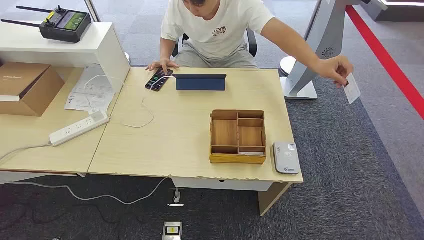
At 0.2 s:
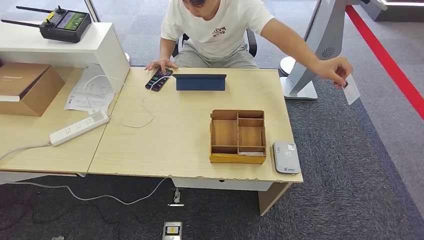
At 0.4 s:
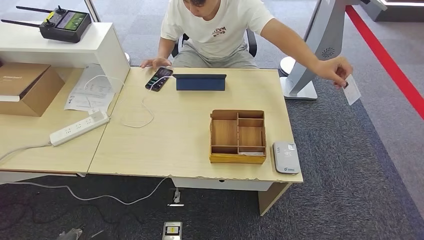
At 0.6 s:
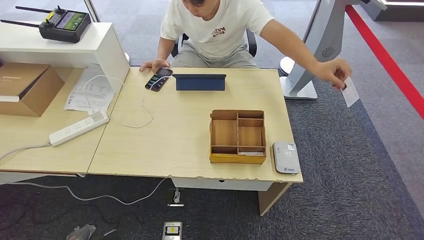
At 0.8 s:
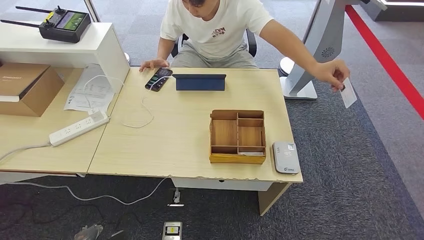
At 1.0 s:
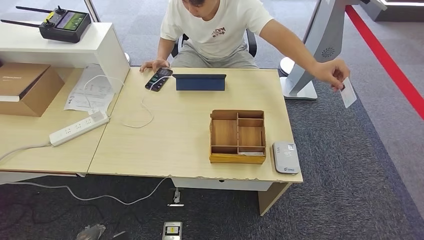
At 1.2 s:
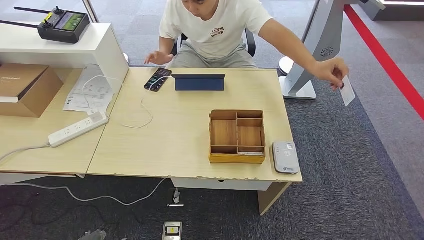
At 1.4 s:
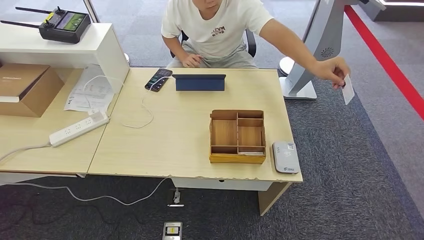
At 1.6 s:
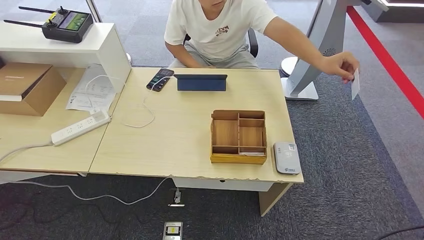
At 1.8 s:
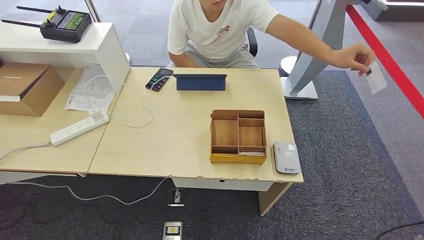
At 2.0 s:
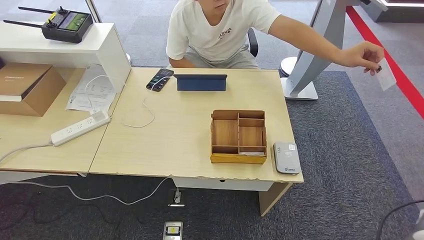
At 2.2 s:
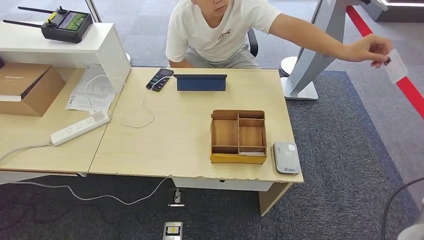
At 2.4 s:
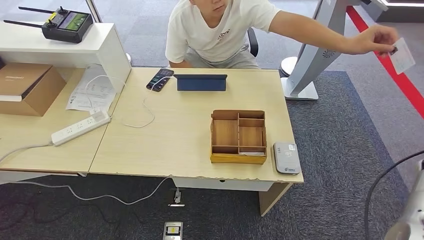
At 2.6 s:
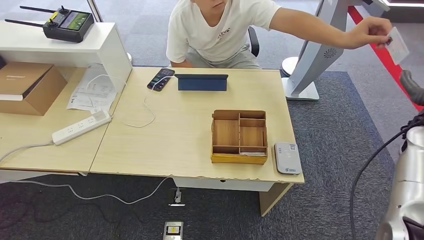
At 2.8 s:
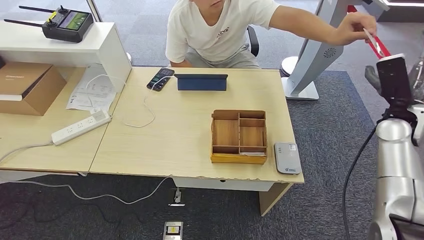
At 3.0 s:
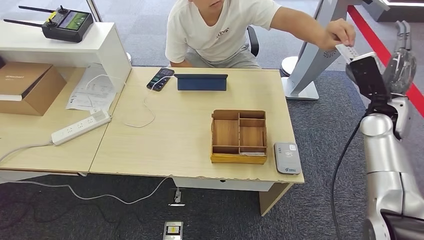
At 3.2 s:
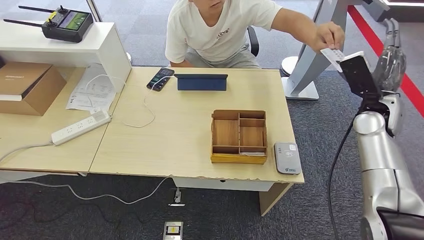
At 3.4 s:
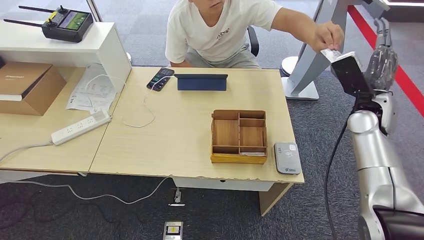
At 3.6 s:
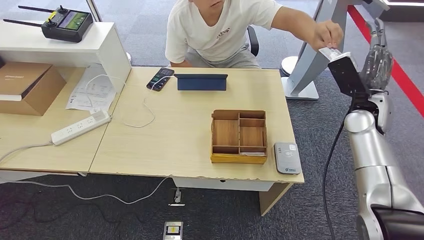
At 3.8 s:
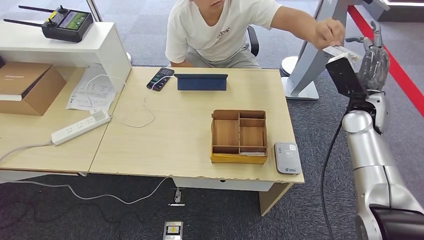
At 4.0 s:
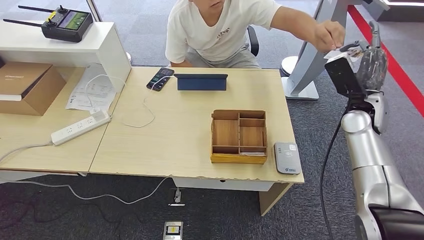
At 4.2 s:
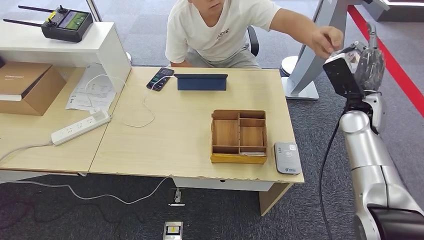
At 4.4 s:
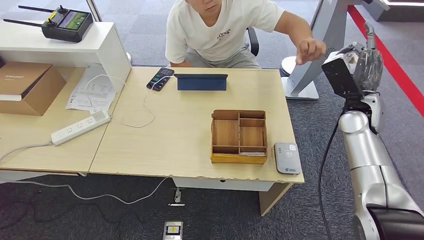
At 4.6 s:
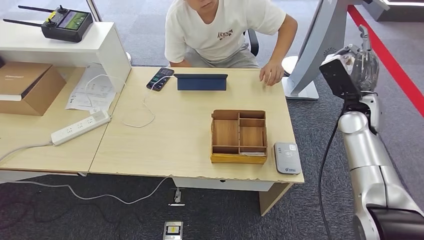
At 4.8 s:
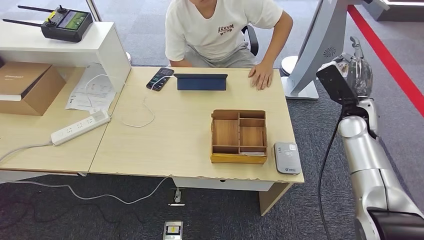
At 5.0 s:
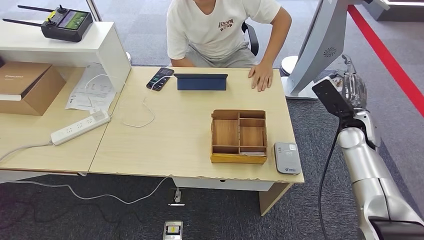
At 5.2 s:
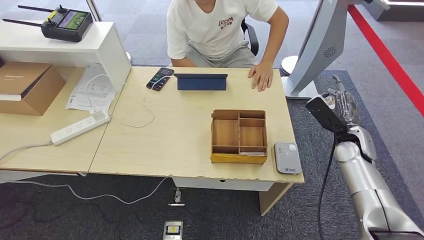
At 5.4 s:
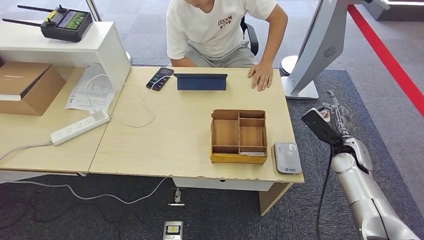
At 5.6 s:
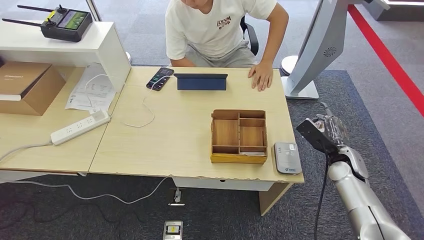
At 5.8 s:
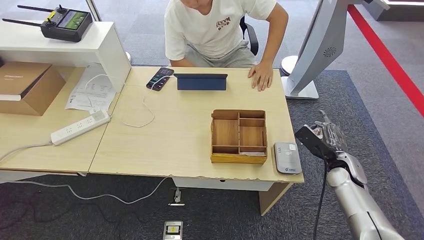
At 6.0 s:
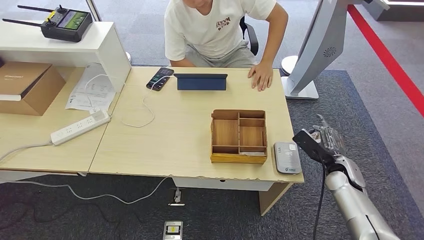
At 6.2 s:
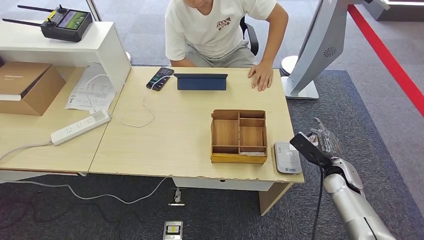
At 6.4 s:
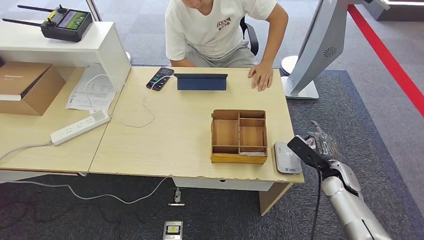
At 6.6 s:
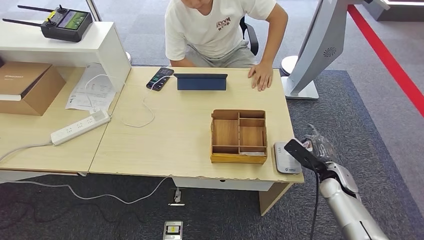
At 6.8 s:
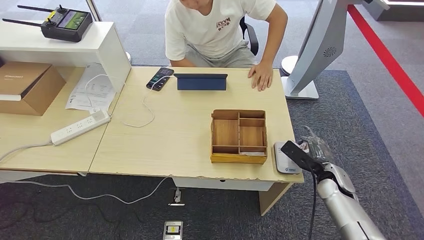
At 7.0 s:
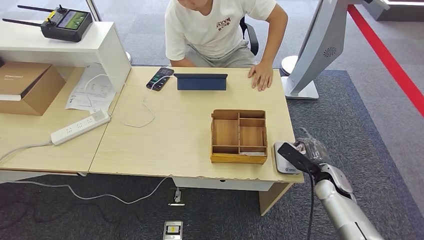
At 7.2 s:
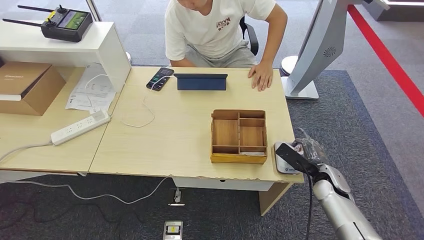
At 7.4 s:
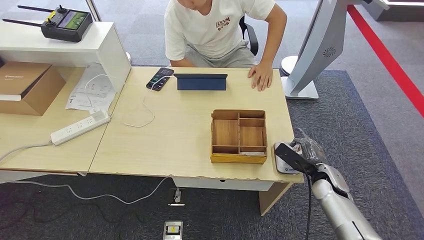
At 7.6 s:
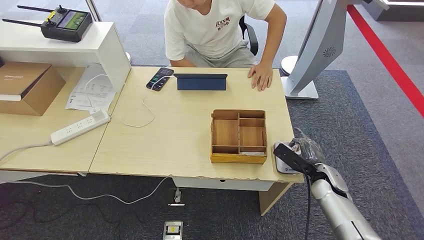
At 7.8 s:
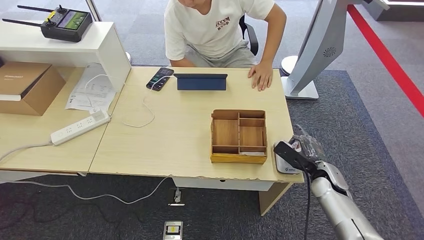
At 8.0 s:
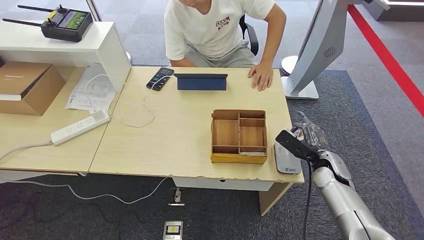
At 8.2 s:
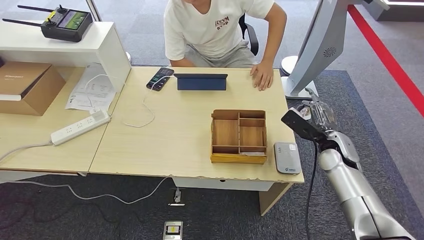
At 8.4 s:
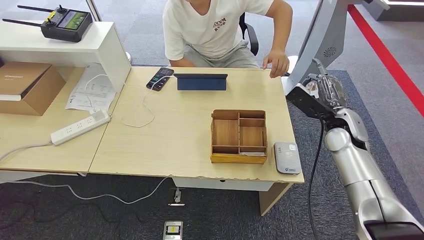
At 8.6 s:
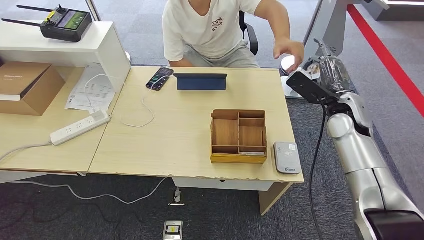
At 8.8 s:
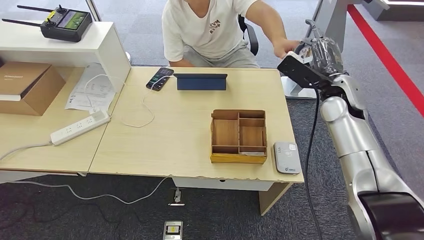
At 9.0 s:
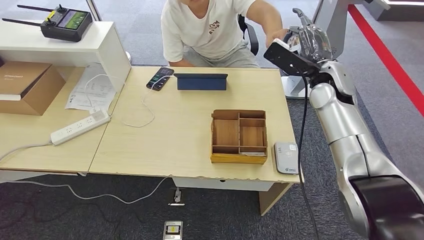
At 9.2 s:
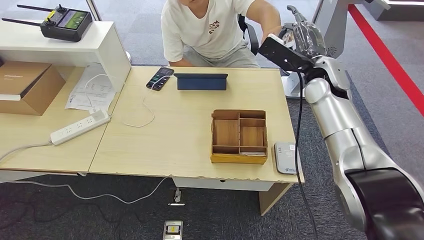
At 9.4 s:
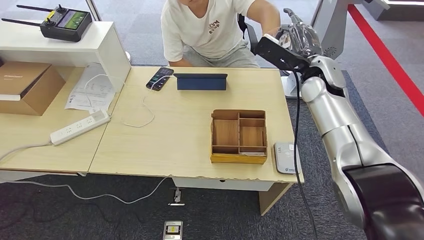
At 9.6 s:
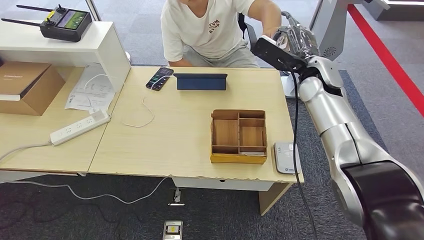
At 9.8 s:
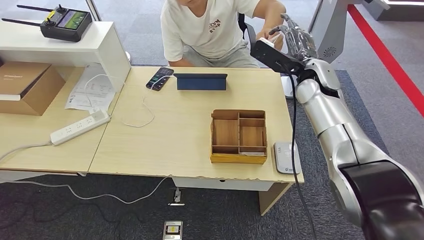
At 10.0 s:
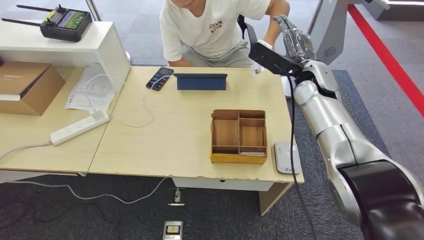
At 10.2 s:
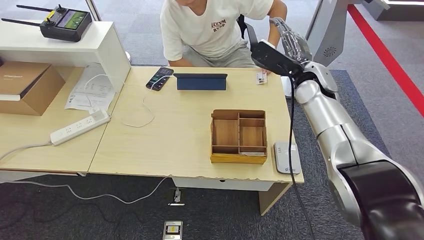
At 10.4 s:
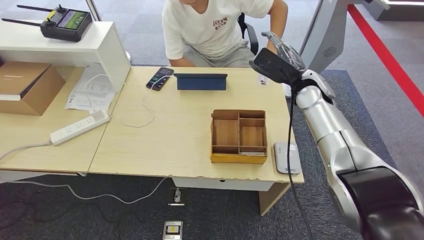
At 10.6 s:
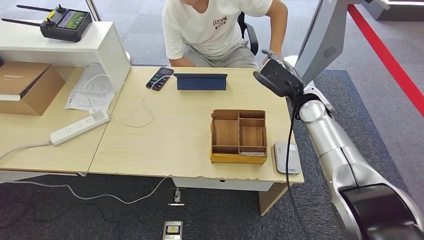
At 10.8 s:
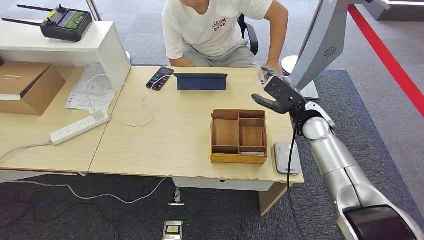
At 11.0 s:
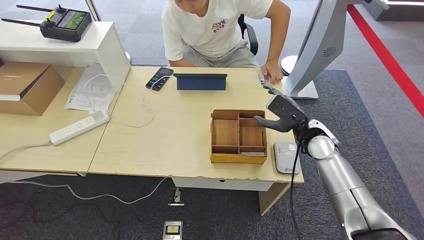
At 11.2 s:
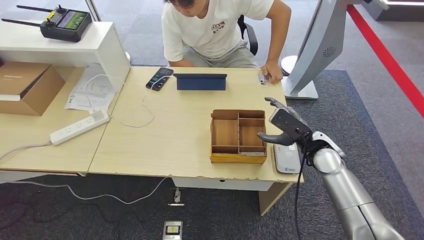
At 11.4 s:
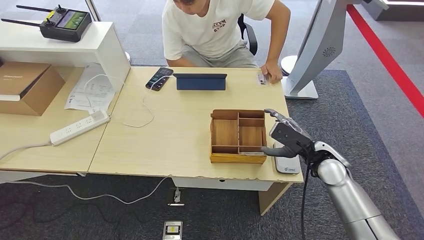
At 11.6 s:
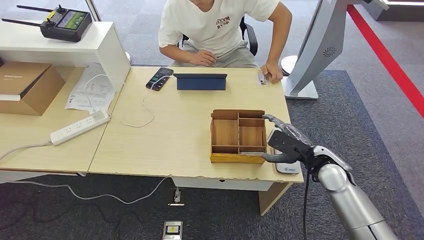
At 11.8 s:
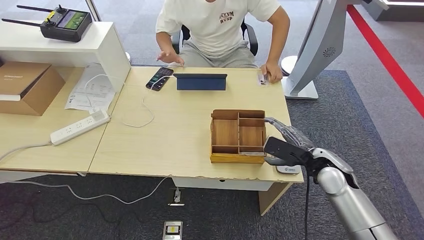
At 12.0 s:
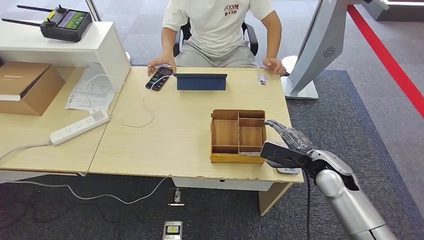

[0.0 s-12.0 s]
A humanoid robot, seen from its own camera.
Step, 0.0 to 4.6 s: Take the ID card from the person's hand.
Step, 5.0 to 7.4 s: Place the ID card on the card reader.
Step, 7.6 to 10.8 s: Hand the ID card to the person.
1.6 to 3.0 s: The right hand heads forward, upward and to the left, covering about 35 cm.
3.0 to 4.4 s: The hands stay close to where they were, moving slightly.
4.4 to 6.0 s: The right hand heads downward and backward, covering roughly 20 cm.
6.0 to 7.6 s: There are only small adjustments of the hands.
7.6 to 9.0 s: The right hand heads upward and forward, covering roughly 30 cm.
10.4 to 12.0 s: The right hand heads backward and downward, covering about 20 cm.

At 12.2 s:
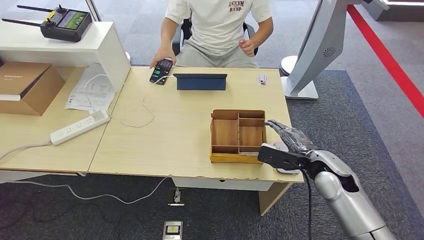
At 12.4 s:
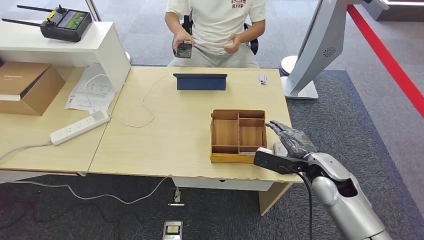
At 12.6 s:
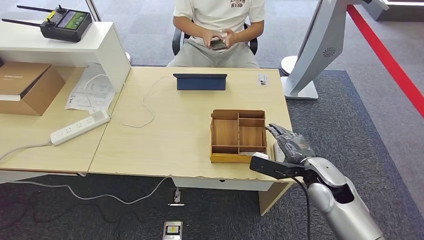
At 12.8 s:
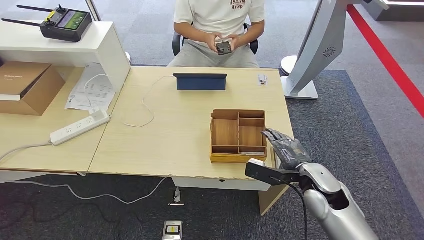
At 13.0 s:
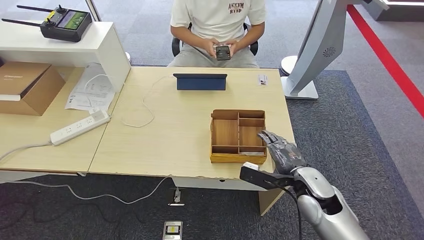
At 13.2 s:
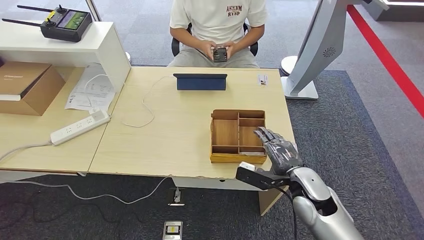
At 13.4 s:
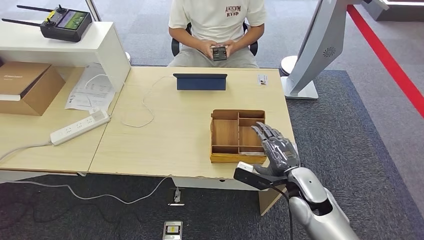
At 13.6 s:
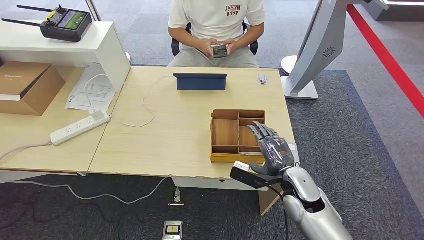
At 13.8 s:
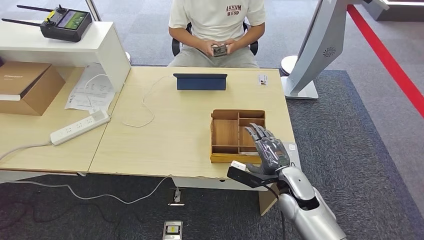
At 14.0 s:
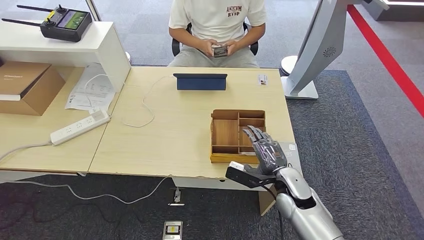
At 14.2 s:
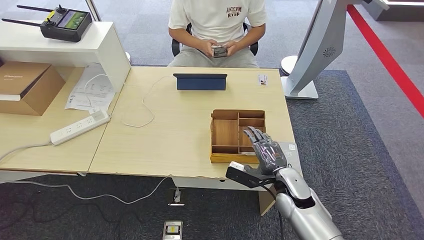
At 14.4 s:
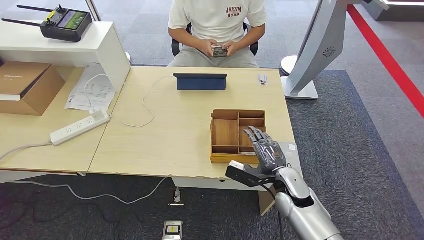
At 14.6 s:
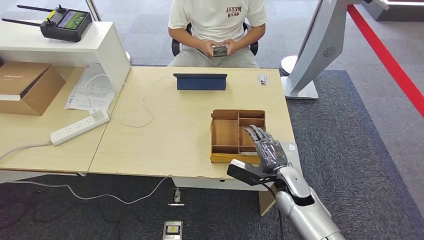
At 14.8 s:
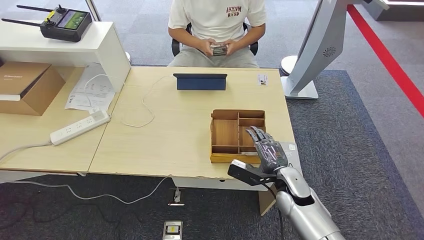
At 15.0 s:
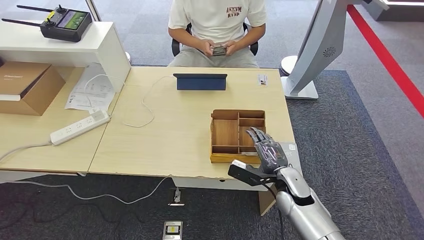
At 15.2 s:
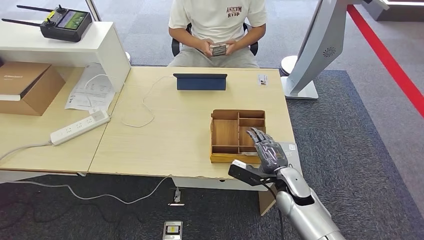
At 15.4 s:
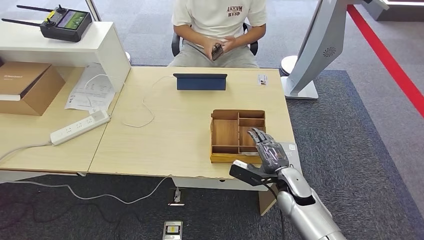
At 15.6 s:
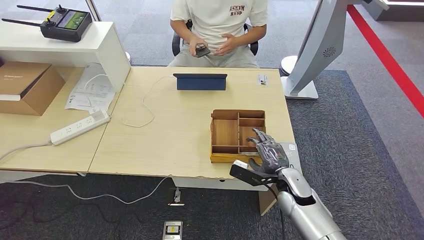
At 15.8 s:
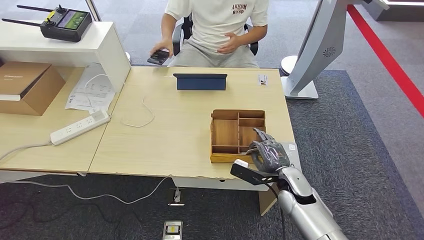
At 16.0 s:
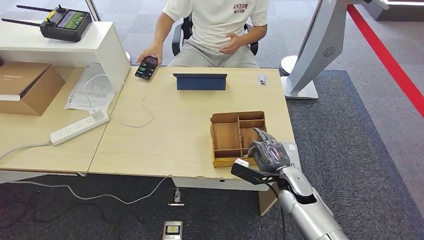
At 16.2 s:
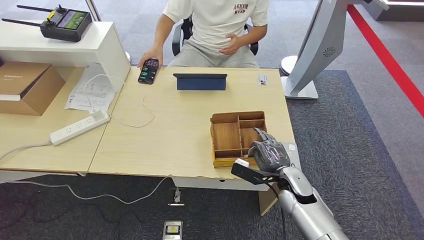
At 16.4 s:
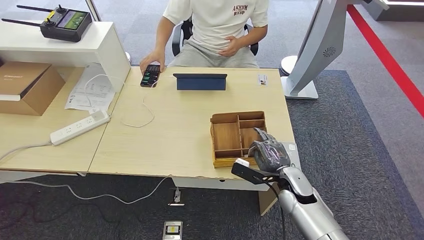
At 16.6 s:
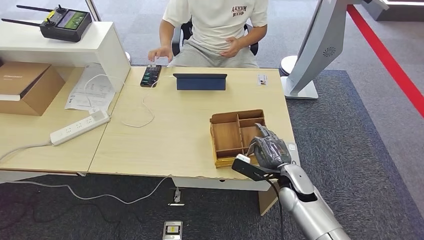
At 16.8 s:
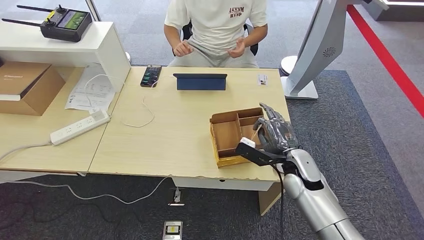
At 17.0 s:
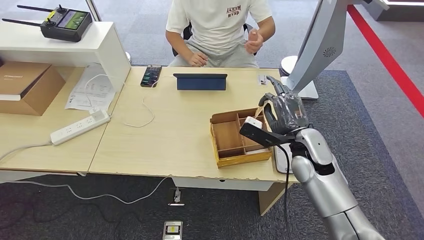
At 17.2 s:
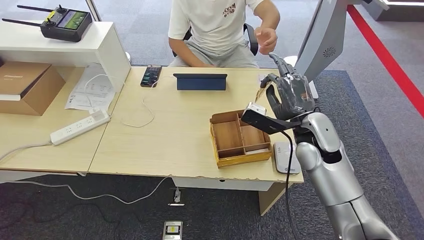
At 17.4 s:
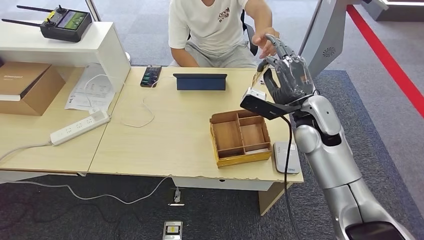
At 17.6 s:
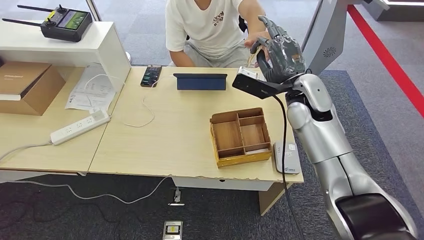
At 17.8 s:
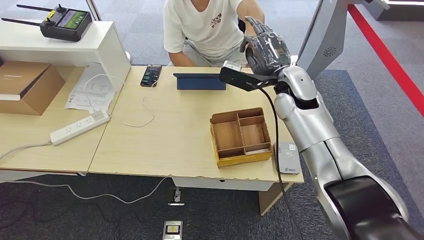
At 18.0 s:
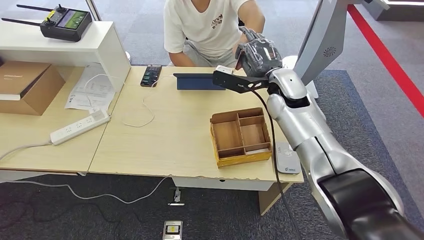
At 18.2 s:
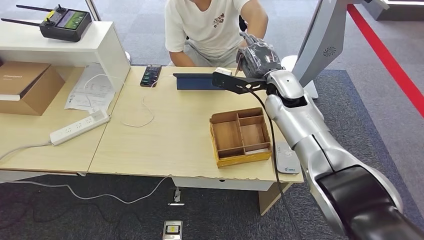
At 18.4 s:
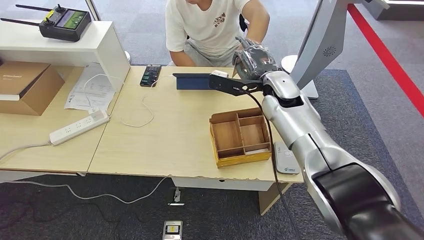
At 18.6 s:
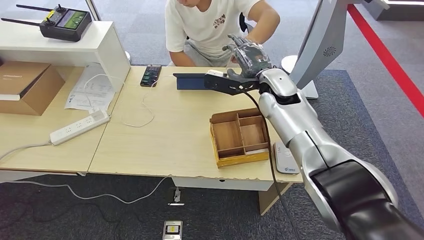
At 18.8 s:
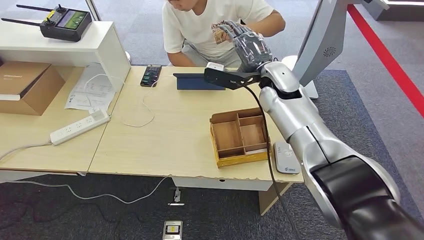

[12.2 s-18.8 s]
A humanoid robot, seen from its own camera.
Step, 12.2 to 17.6 s: Pick up the room key from the key card box.
12.2 to 13.8 s: The right hand travels to the left and downward by approximately 10 cm.
13.8 to 15.4 s: The hands stay close to where they were, moving slightly.
15.4 to 17.2 s: The right hand is displaced upward and forward by about 20 cm.
17.2 to 18.8 s: The right hand goes roughly 15 cm forward, to the left and upward.
